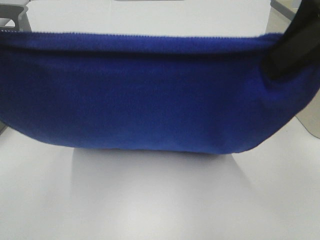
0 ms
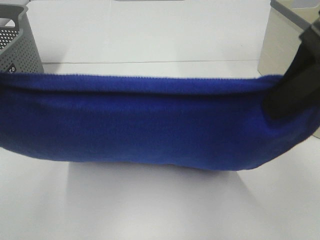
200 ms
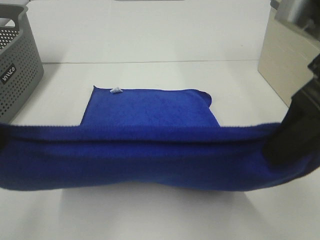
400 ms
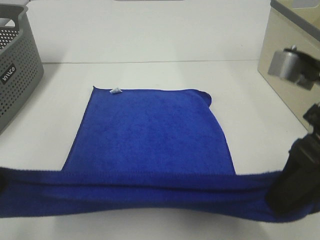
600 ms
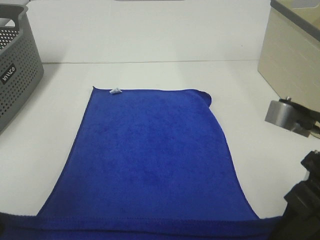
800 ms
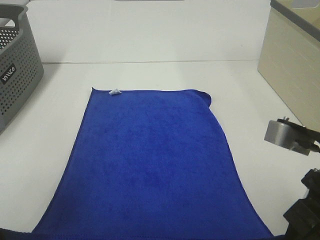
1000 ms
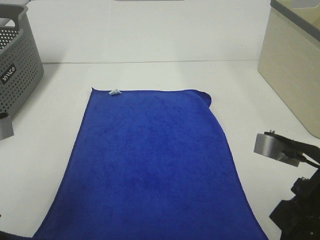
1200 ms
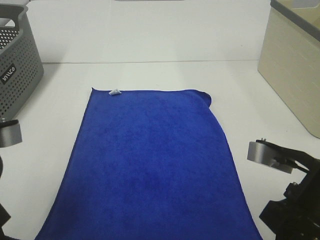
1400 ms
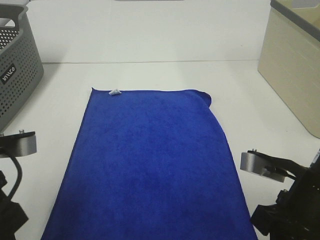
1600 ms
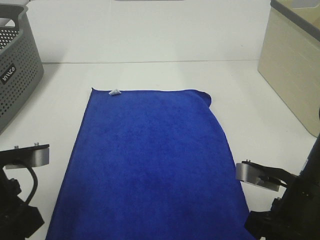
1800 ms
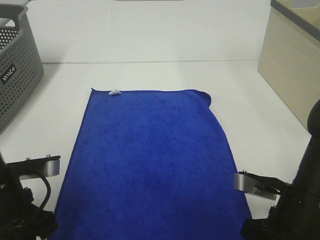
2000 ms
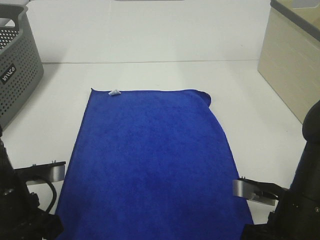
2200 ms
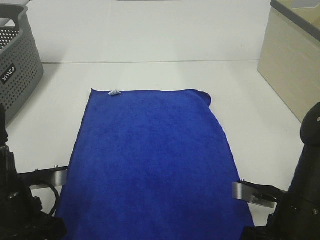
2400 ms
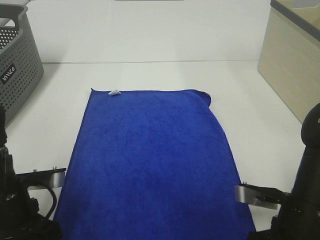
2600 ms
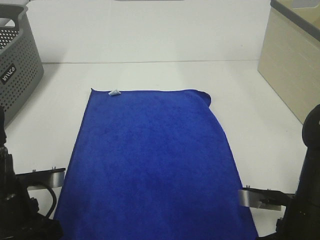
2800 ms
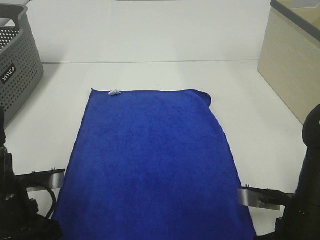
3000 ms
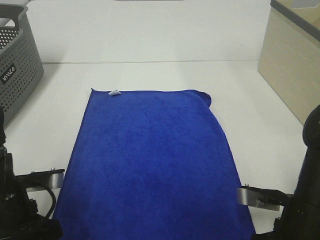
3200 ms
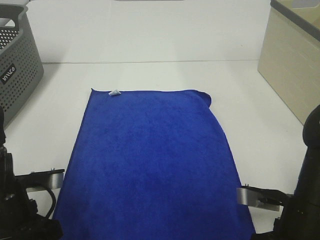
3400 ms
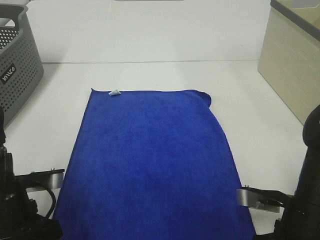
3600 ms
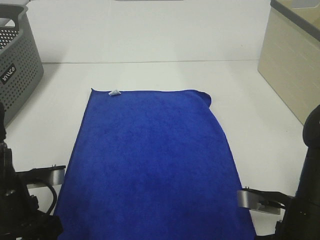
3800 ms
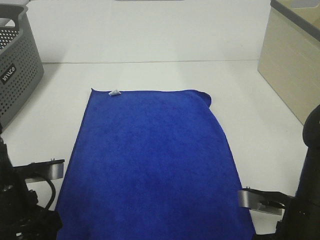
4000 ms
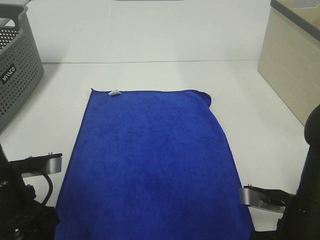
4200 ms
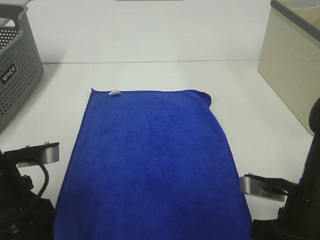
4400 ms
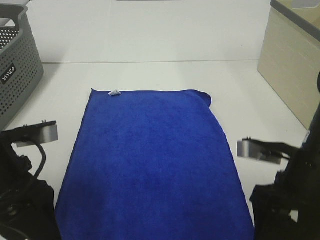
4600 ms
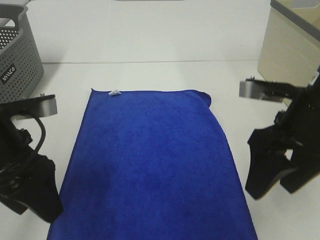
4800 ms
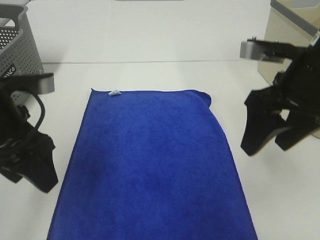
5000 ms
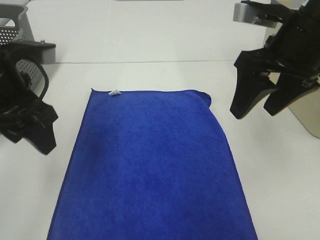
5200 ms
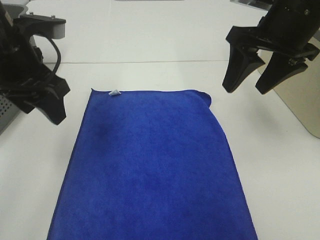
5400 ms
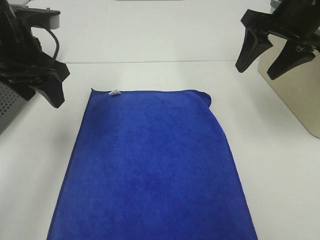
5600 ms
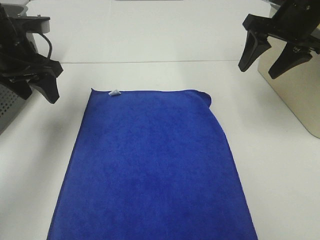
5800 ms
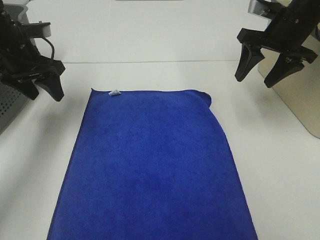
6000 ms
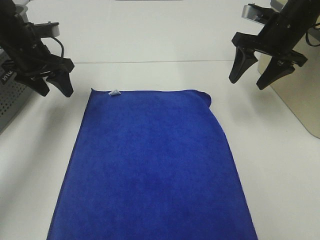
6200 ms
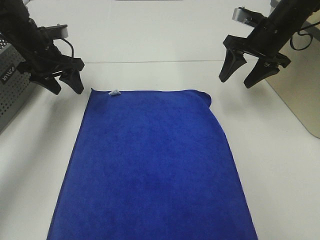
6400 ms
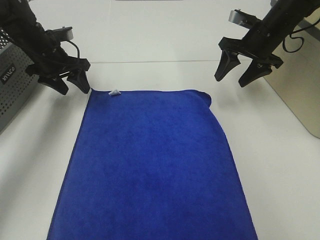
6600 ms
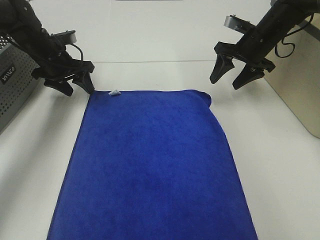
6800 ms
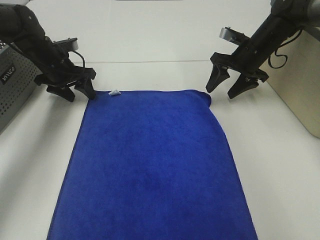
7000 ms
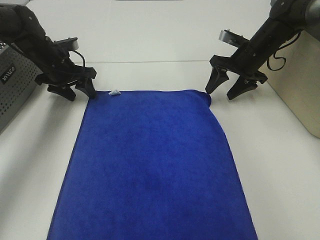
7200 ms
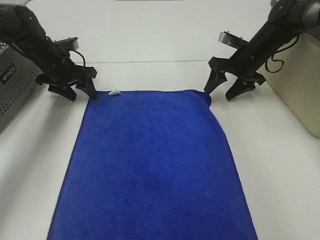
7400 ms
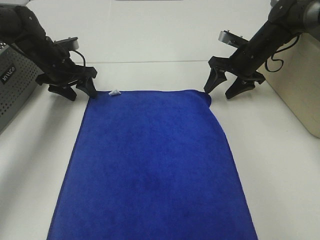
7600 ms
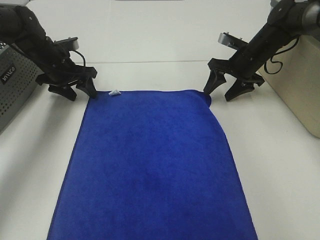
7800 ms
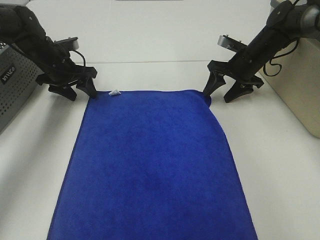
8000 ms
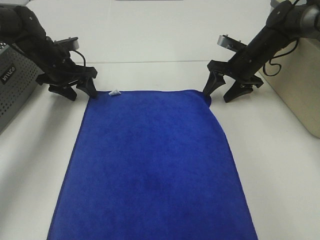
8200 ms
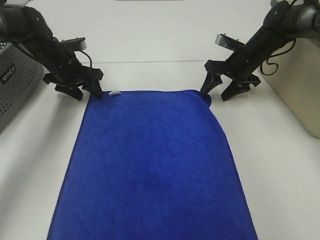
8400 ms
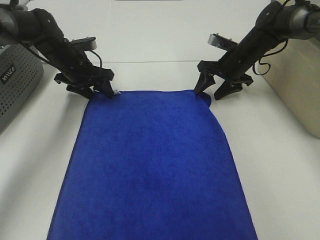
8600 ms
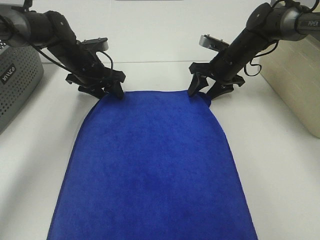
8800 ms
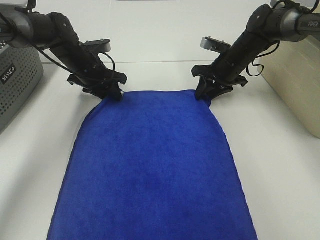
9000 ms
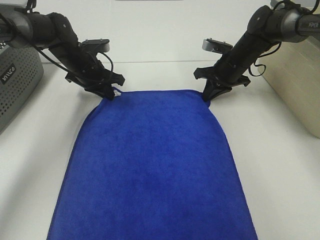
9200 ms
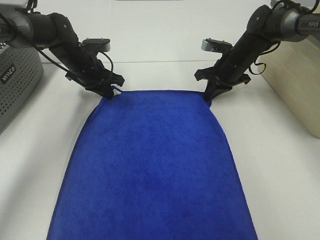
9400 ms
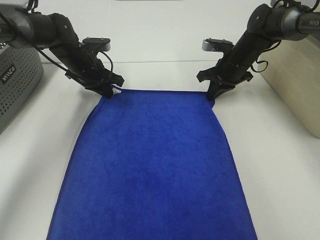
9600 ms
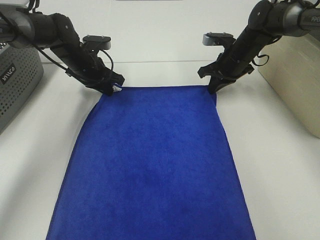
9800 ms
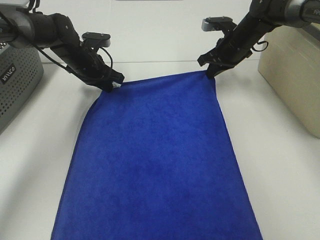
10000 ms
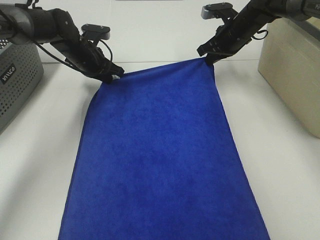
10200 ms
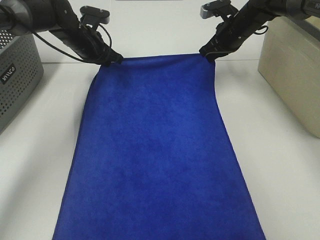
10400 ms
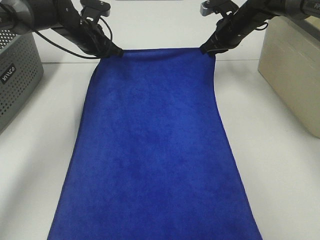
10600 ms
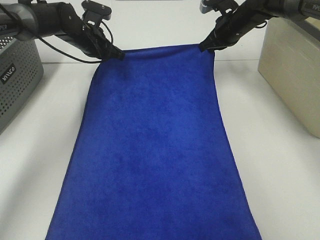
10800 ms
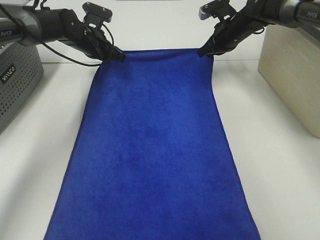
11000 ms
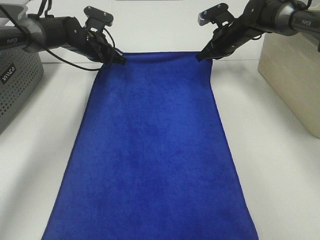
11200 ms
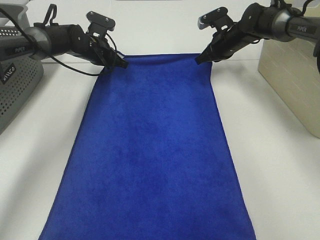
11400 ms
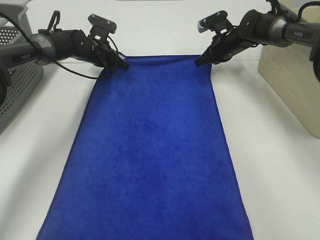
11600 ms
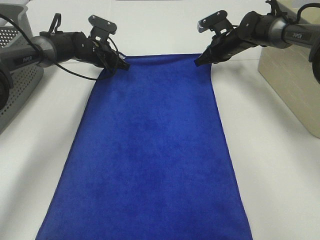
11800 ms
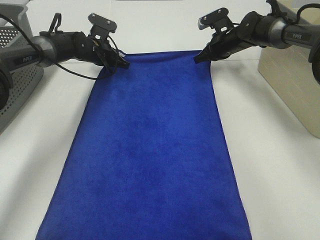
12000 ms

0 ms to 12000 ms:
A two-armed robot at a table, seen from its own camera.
Task of the whole recording: Remove the towel and place it.
Step, 0 ms to 6200 ms: Left hand:adjust the blue towel.
Step, 0 ms to 6200 ms: Right hand:adjust the blue towel.
0 ms to 1600 ms: Both grippers move downward, about 20 cm.
1600 ms to 3000 ms: Both grippers travel together downward, roughly 5 cm. The left gripper opens. The right gripper opens its fingers.
3000 ms to 4400 ms: The right gripper opens.
4400 ms to 6000 ms: The grippers both shift forward by some 25 cm.
6000 ms to 7600 ms: Both grippers move downward and forward, approximately 15 cm.
7600 ms to 9000 ms: The left gripper shifts roughly 5 cm to the right. Meanwhile the right gripper closes its fingers.
9000 ms to 10400 ms: The right gripper is displaced upward by roughly 5 cm, and closes up, while the left gripper shifts by some 5 cm, and closes its fingers.
10400 ms to 12000 ms: Both grippers travel together downward, approximately 5 cm.

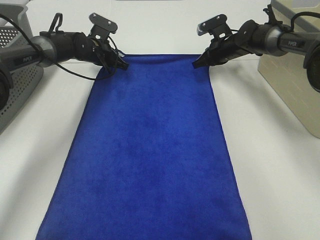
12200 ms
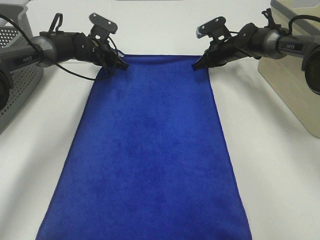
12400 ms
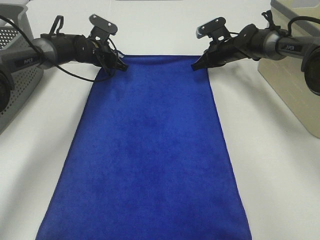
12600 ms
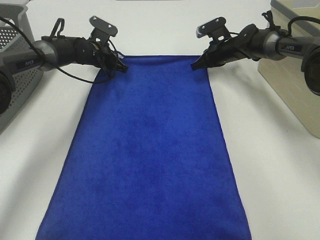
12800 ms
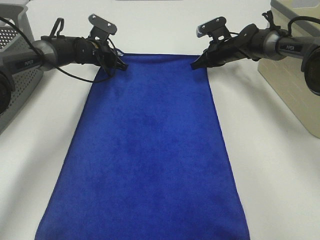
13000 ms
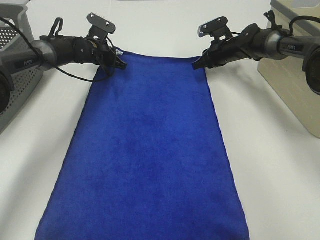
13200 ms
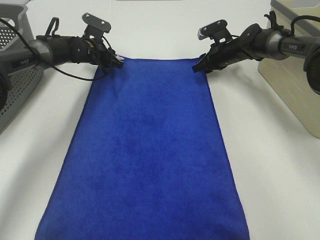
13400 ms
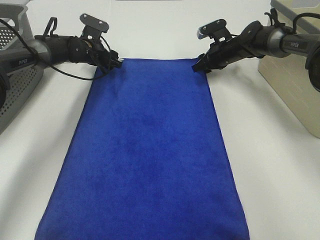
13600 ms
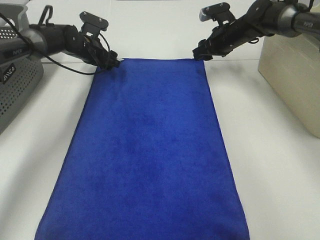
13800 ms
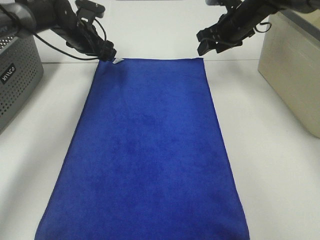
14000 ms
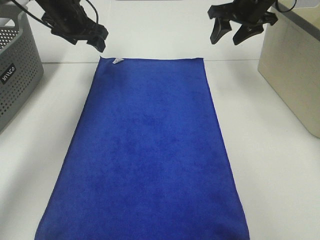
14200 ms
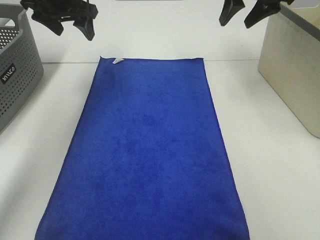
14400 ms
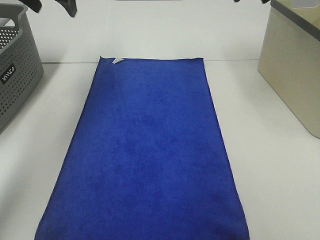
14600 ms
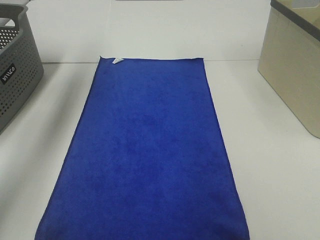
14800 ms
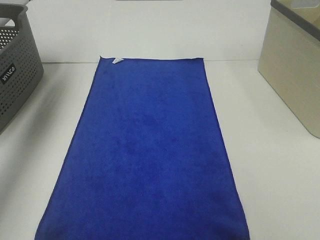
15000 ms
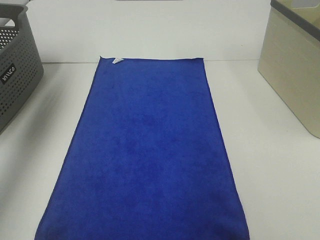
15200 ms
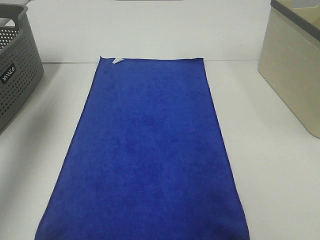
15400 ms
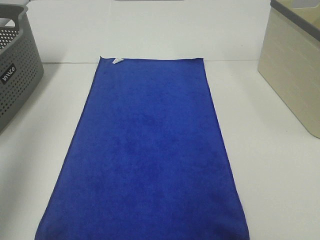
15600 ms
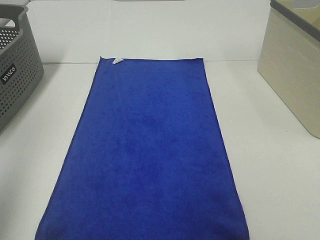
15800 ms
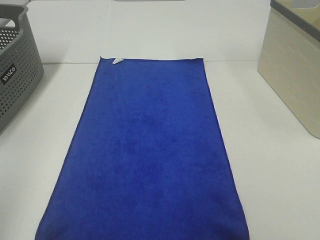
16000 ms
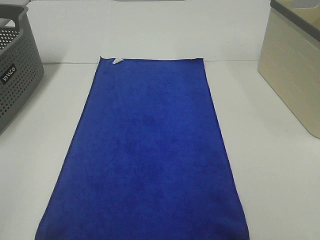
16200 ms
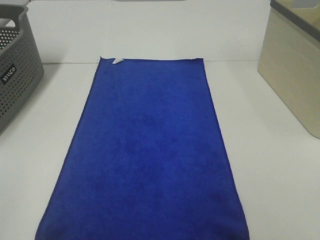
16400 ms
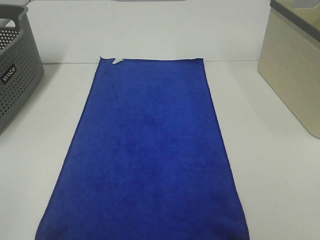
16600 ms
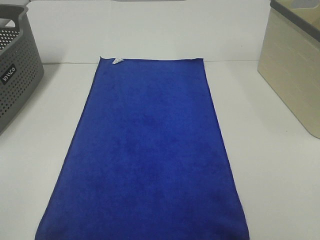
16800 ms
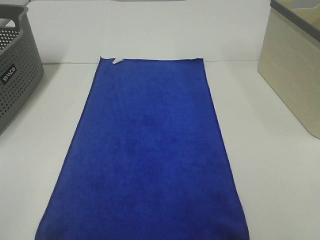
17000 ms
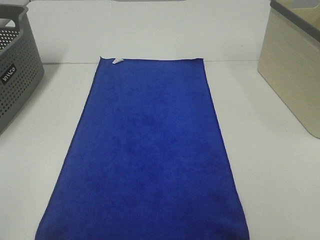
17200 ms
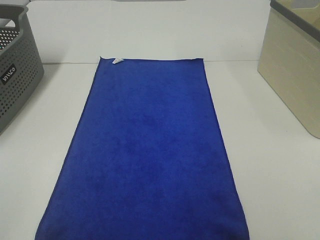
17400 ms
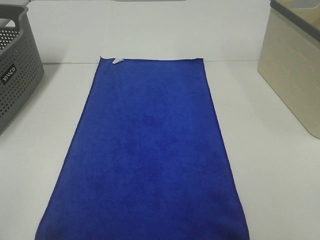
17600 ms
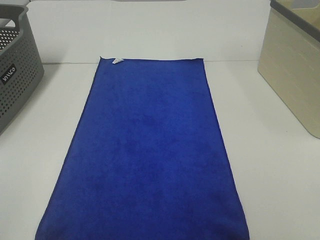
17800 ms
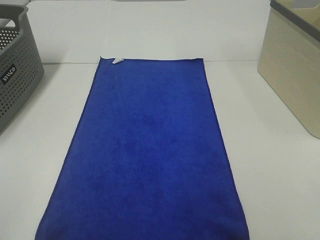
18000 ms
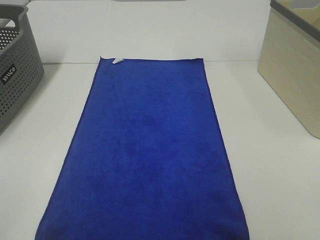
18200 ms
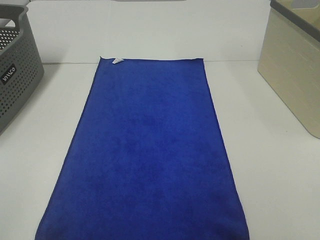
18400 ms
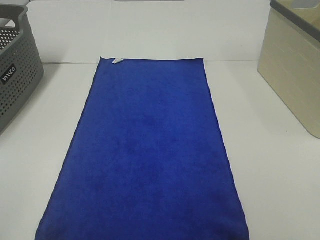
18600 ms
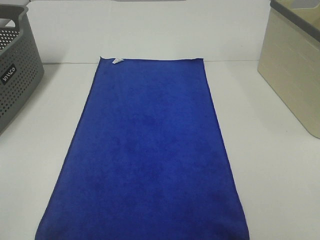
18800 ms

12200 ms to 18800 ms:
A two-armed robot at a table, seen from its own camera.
Task of the whole recording: Remove the towel and place it.
12200 ms to 13800 ms: The right gripper travels upward by some 5 cm, and opens; the left gripper opens its fingers.
13800 ms to 15400 ms: The left gripper heads upward, backward and to the left, covering roughly 40 cm. The right gripper heads backward and upward, covering approximately 40 cm.
15400 ms to 17200 ms: The left gripper shifts about 35 cm backward.
17200 ms to 18800 ms: Both grippers stay put.

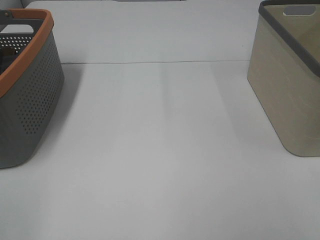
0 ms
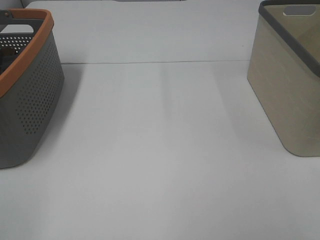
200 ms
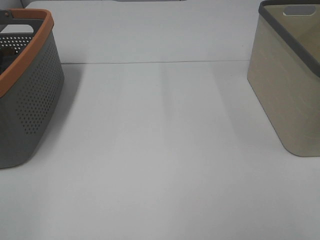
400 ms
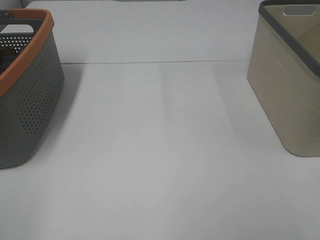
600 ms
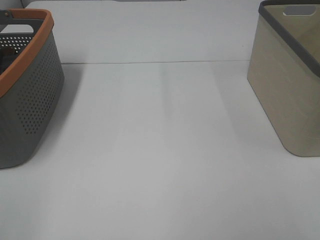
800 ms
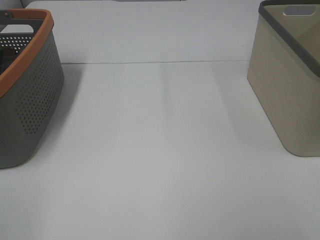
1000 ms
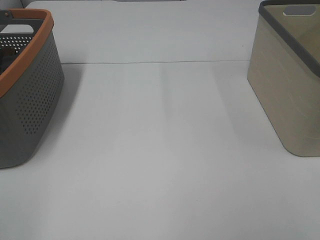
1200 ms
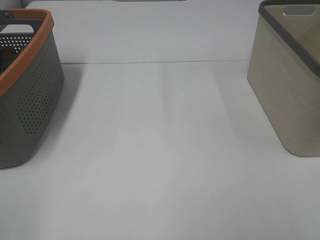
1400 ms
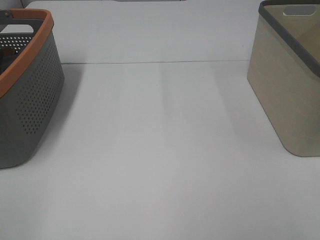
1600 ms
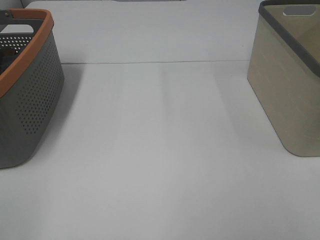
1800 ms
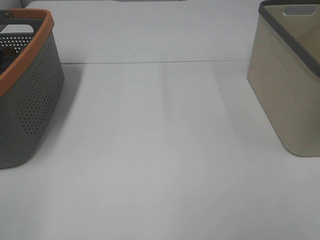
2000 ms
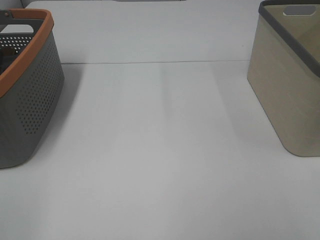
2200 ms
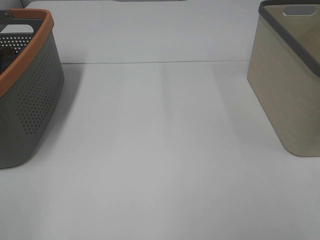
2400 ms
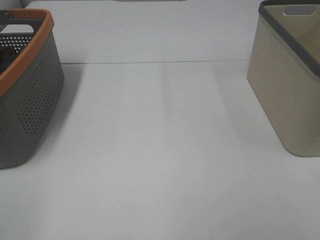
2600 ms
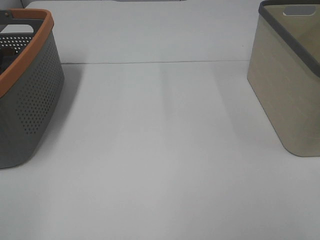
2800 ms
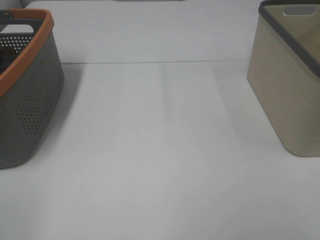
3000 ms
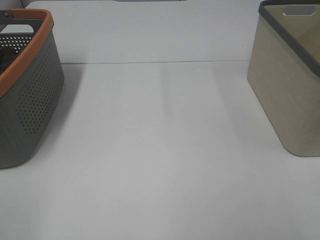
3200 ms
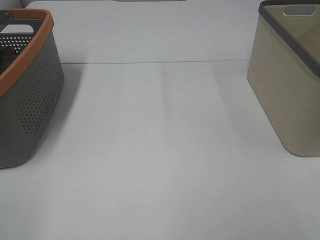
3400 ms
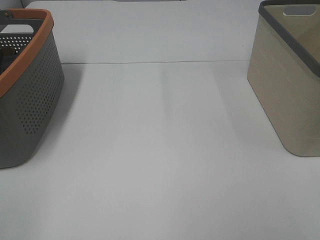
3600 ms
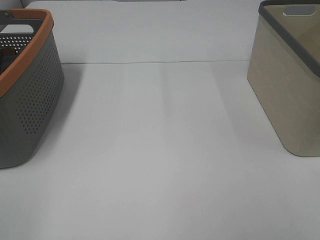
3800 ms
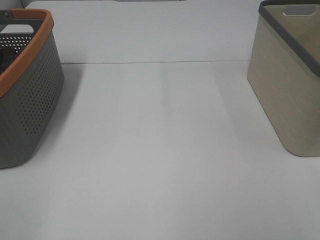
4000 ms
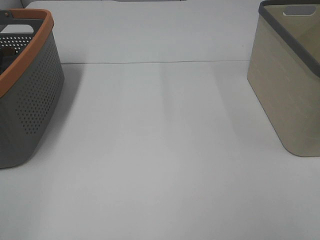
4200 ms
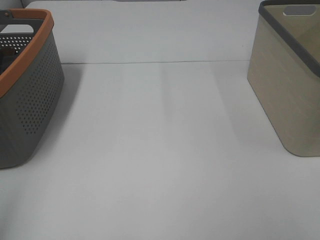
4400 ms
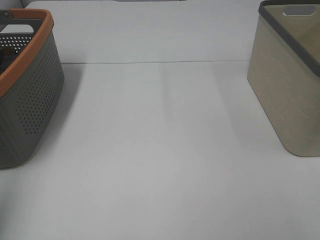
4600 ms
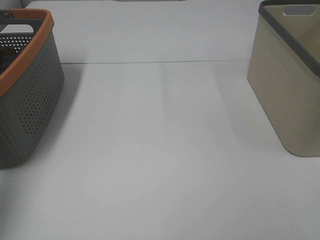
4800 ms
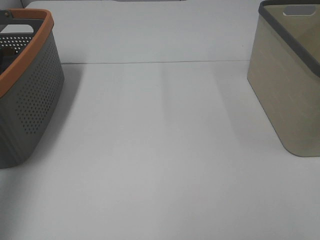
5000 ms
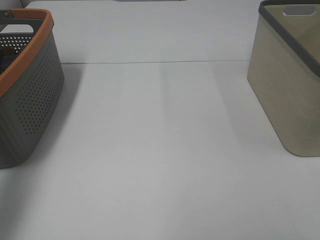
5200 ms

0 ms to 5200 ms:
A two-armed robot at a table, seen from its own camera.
Task of the whole recording: Remove the towel and place it.
0 ms to 3400 ms: Both grippers stay put.
3400 ms to 5200 ms: The left gripper heads forward, covering some 25 cm.
